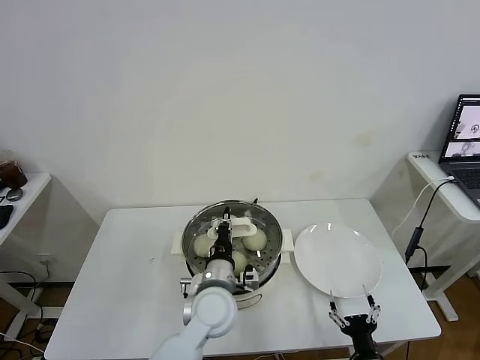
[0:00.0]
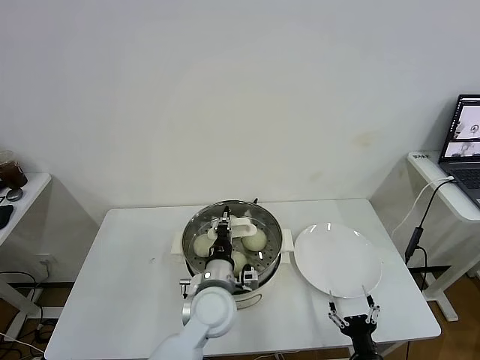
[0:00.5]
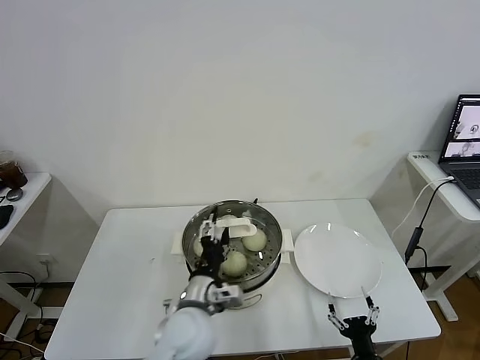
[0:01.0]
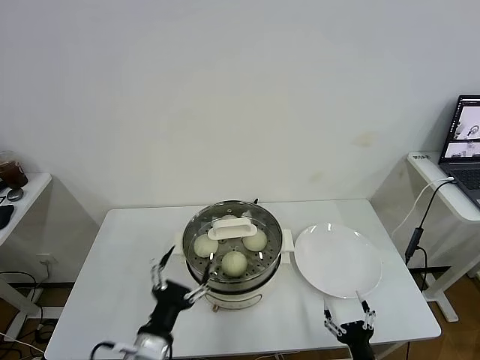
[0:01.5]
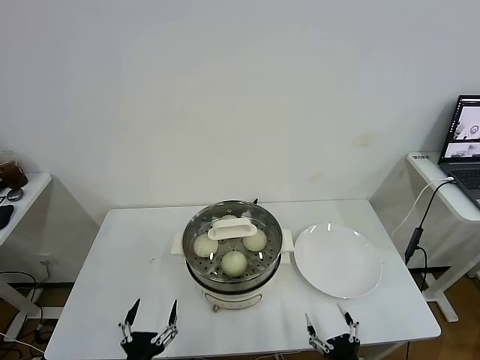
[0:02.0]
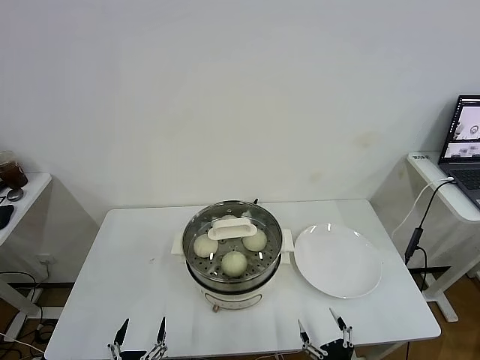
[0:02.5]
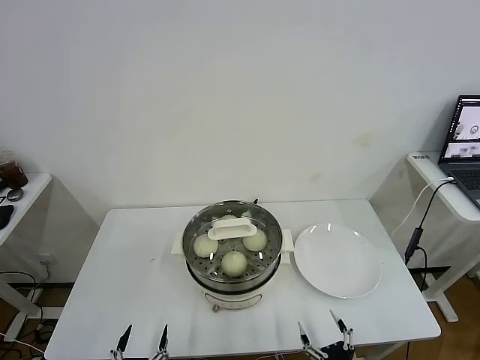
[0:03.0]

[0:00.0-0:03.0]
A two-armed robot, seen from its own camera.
Task of the whole recording: take steamed baozi put them in steamer.
0:00.0 to 0:01.5: The left gripper shifts approximately 20 cm backward and to the left, and opens up.
0:01.5 to 0:03.0: The left gripper travels downward, backward and to the left by approximately 20 cm; the right gripper shifts by roughly 5 cm.

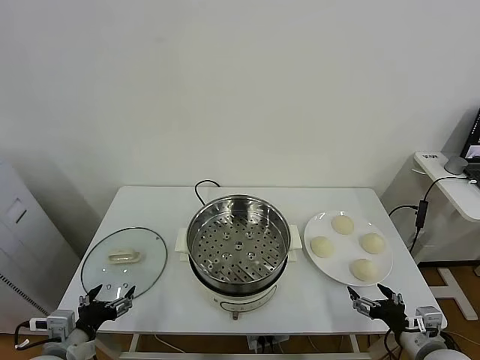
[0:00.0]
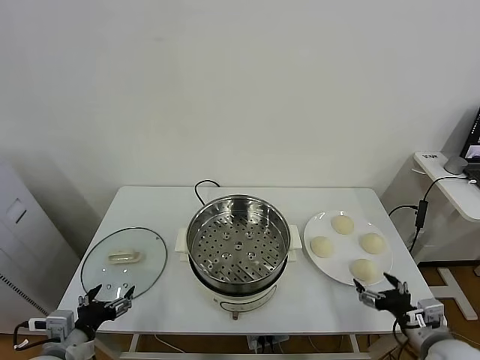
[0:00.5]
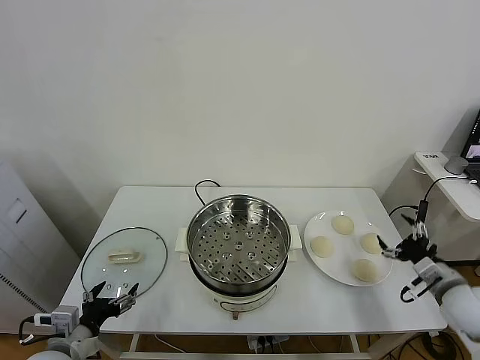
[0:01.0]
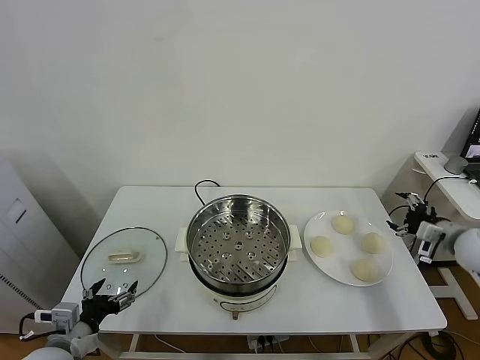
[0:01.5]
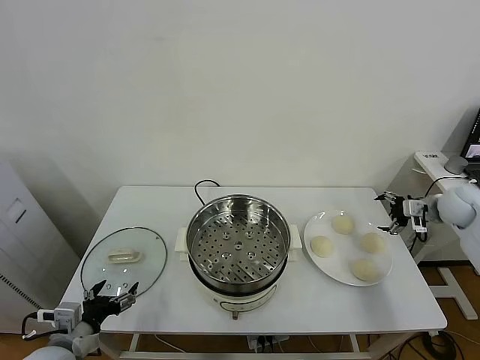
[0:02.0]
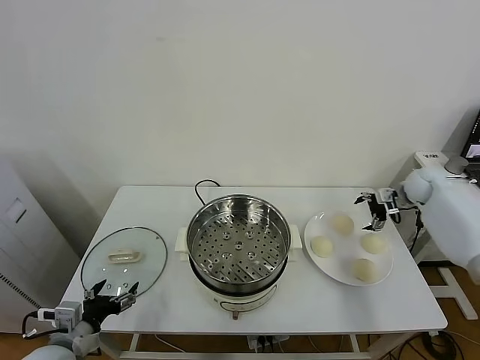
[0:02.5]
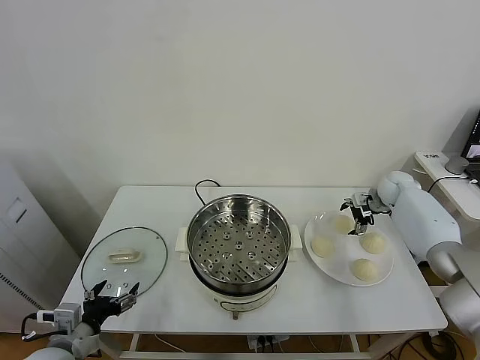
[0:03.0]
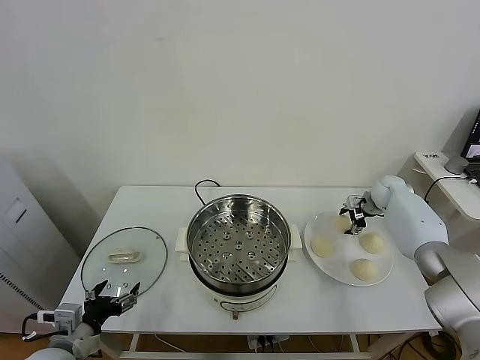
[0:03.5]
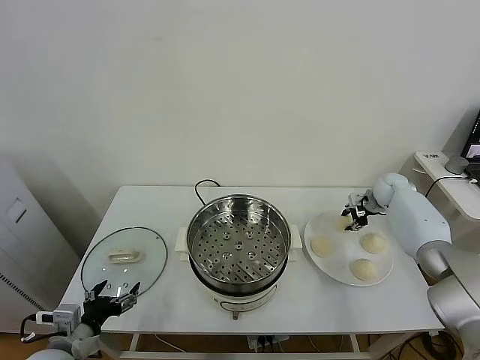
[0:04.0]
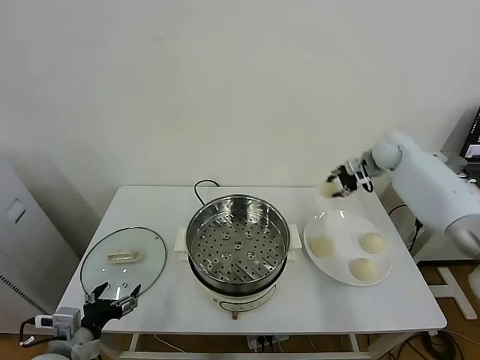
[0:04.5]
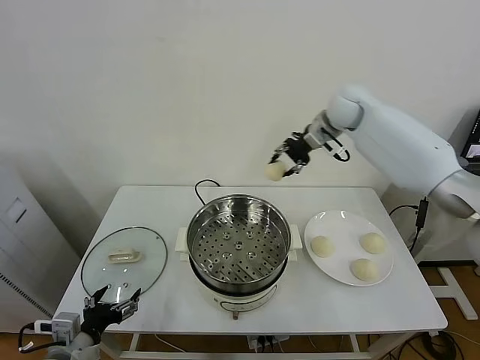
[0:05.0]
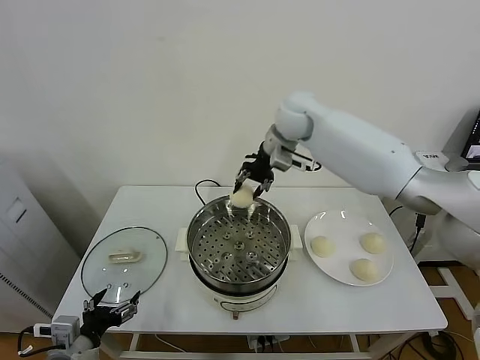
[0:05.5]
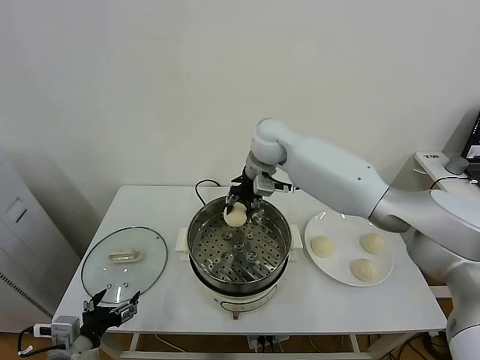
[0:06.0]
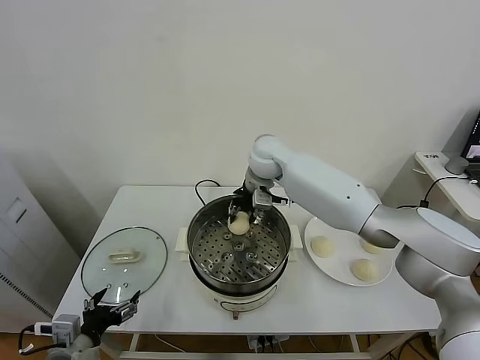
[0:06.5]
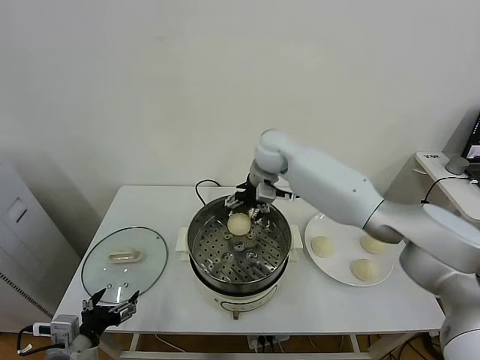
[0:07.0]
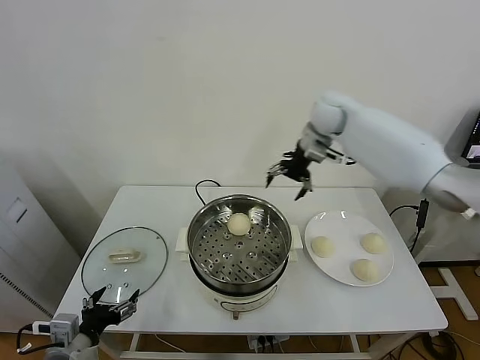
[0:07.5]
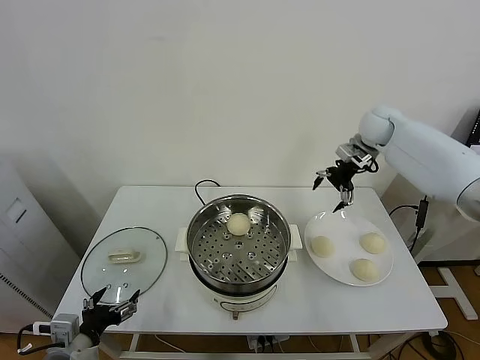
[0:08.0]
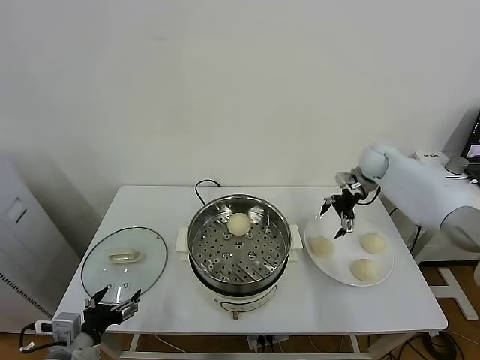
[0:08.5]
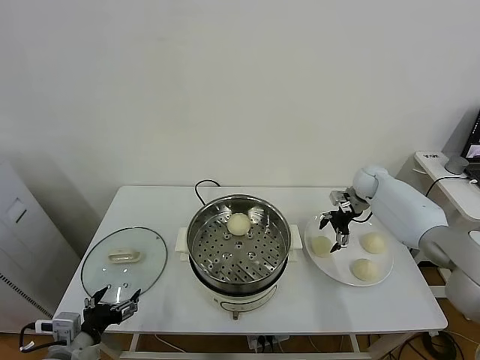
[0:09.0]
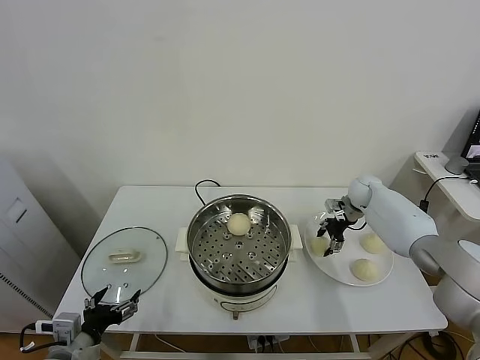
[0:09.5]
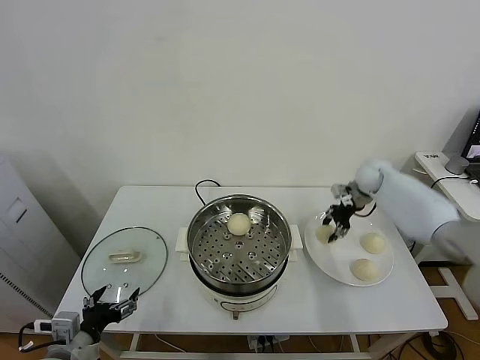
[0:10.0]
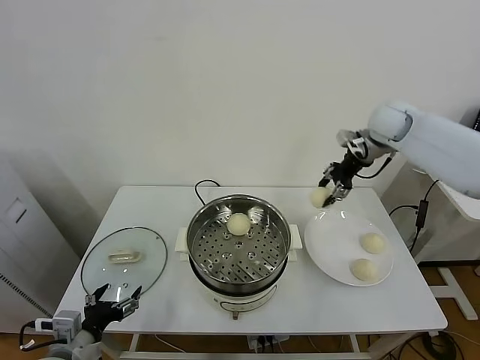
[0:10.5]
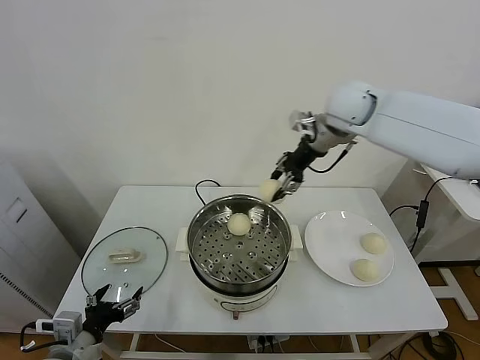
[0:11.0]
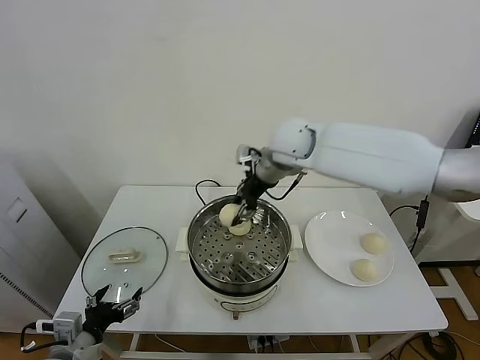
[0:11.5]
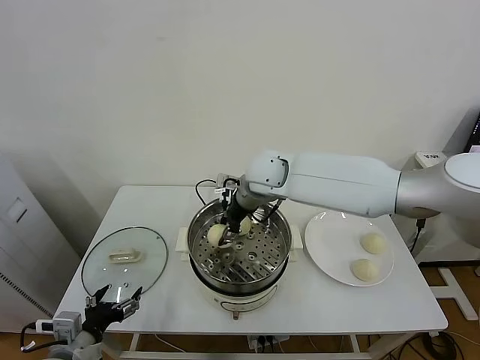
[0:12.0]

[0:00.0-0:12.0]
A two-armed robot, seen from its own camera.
Task of the whole recording: take steamed baozi put them in steamer.
Step, 0:00.0 to 0:03.5: Grasp the baozi in the plate with right gripper.
Step, 0:04.0 to 0:07.0: Place the baozi on the steamer with right gripper.
Step, 0:07.5 to 0:09.5: Grasp the baozi in the plate with right gripper.
0:02.0 to 0:04.0: The right gripper goes some 15 cm forward, to the left and downward, and closes up.
0:04.0 to 0:06.0: The right gripper goes approximately 40 cm to the left and upward.
0:06.0 to 0:08.0: The right gripper is displaced to the right by approximately 30 cm, and opens.
0:08.0 to 0:10.0: The right gripper heads downward, covering roughly 10 cm, and closes up.
0:10.0 to 0:12.0: The right gripper shifts about 30 cm to the left.

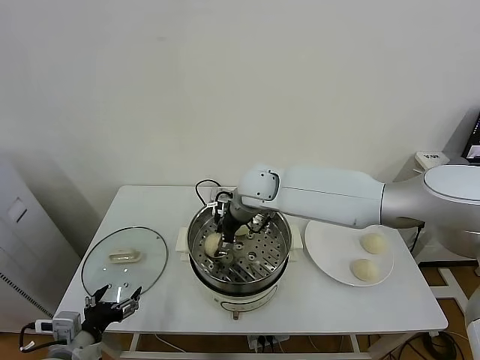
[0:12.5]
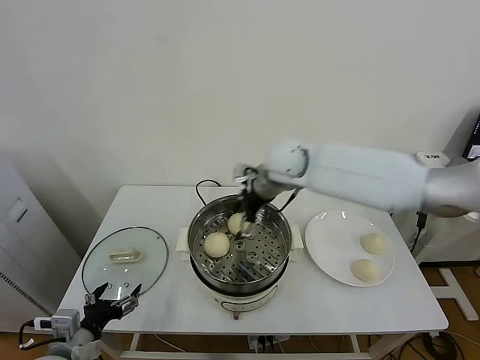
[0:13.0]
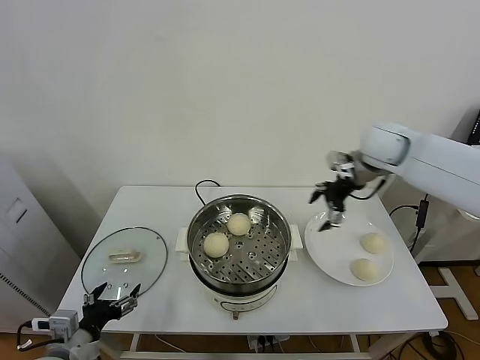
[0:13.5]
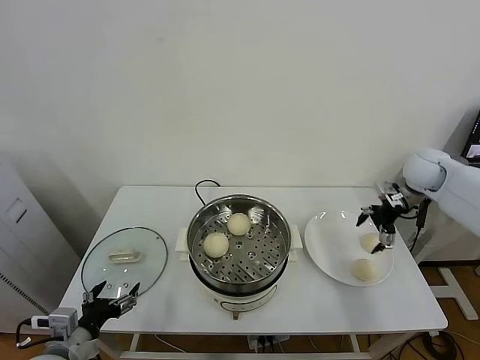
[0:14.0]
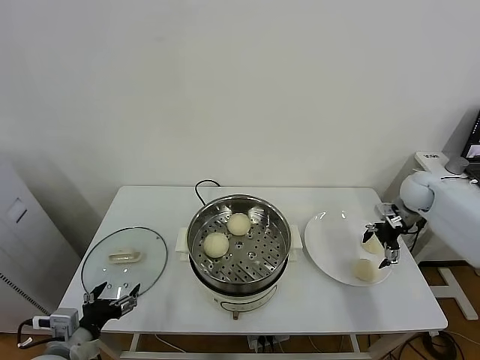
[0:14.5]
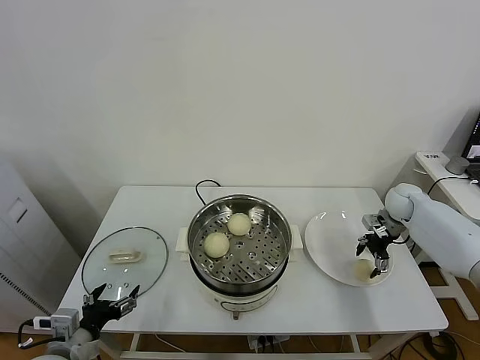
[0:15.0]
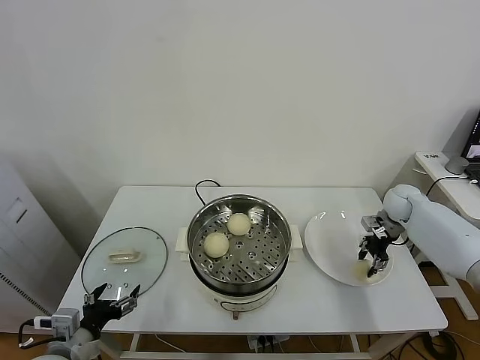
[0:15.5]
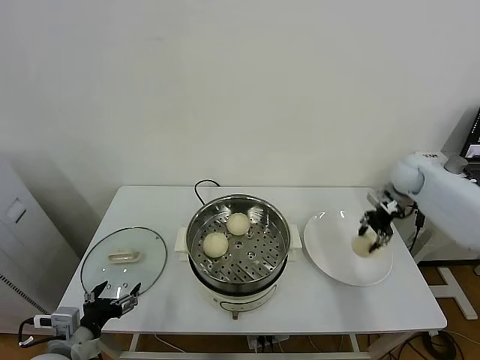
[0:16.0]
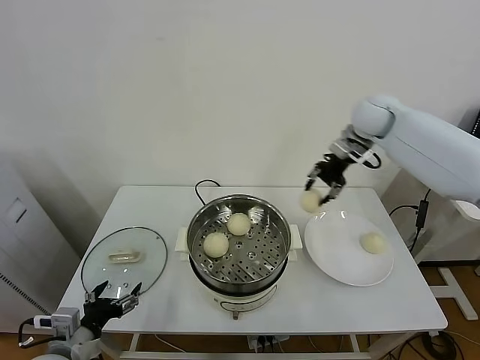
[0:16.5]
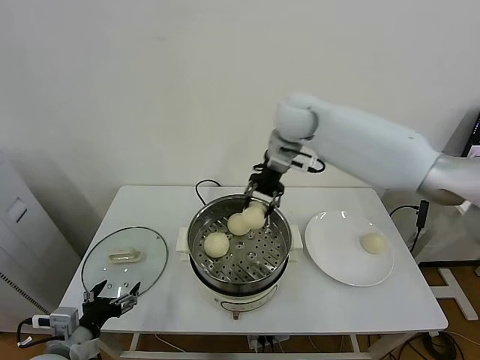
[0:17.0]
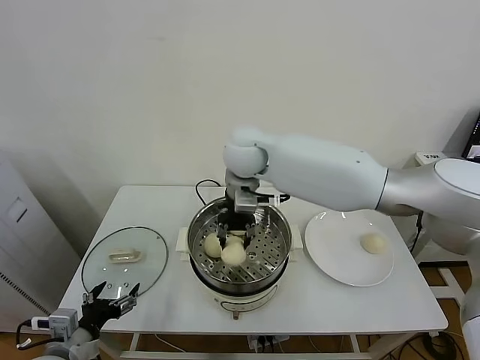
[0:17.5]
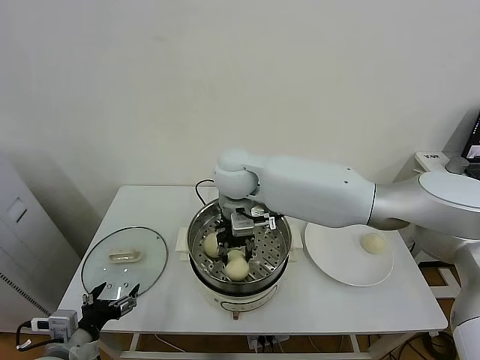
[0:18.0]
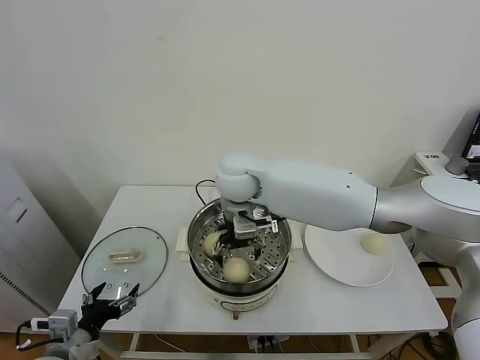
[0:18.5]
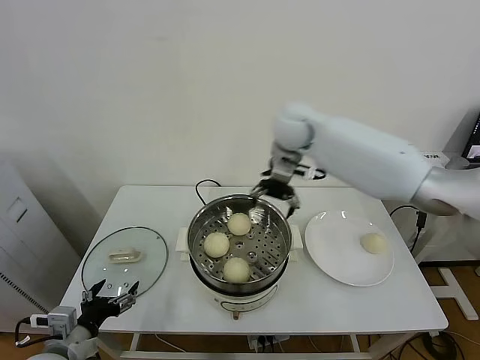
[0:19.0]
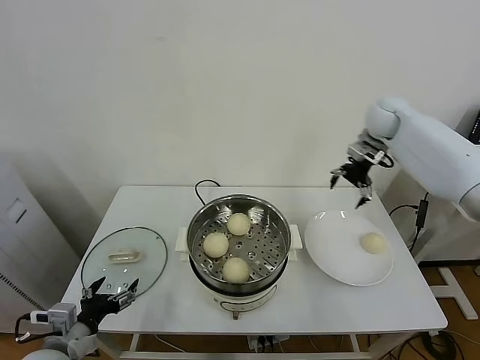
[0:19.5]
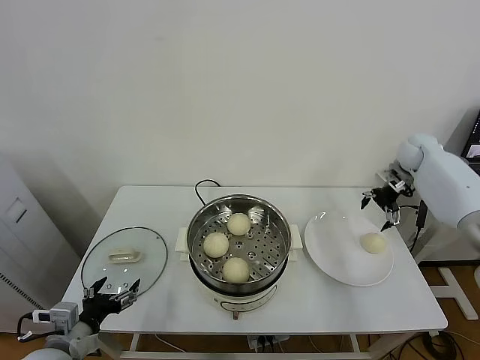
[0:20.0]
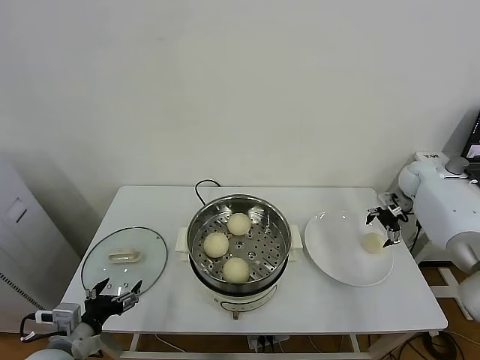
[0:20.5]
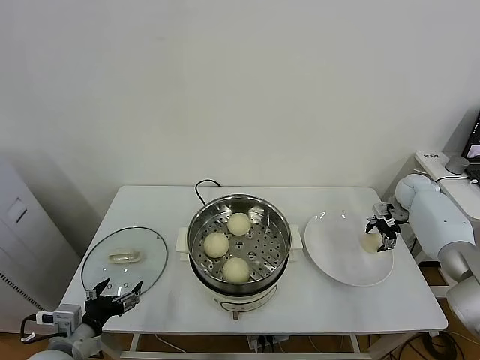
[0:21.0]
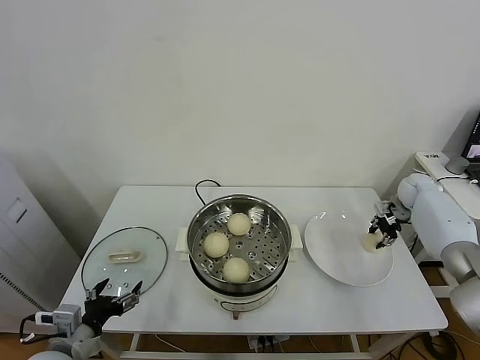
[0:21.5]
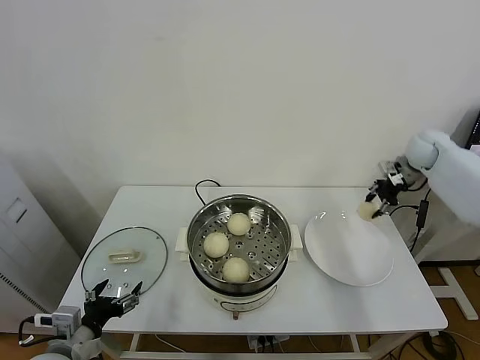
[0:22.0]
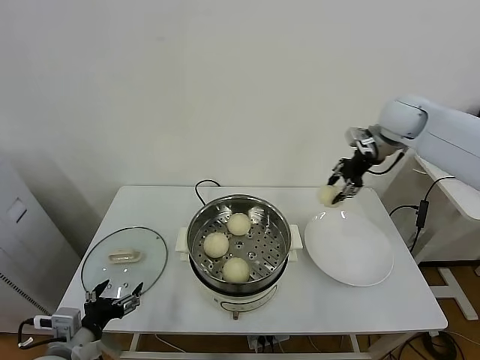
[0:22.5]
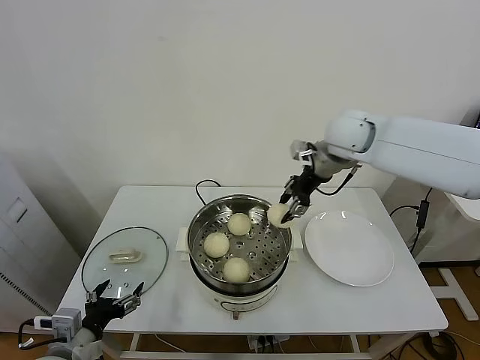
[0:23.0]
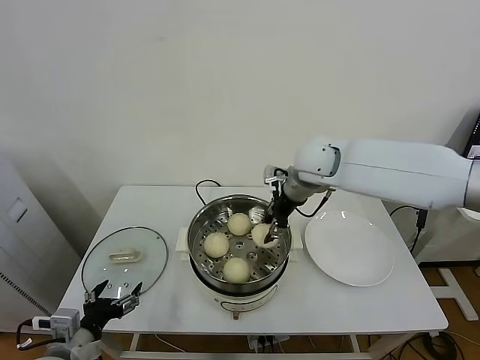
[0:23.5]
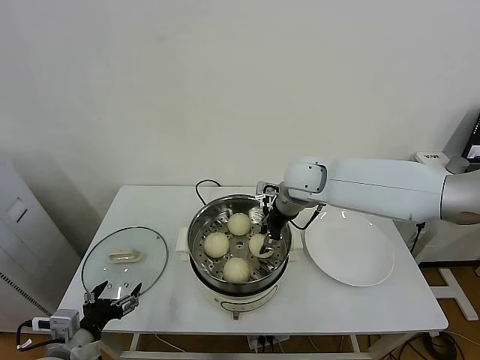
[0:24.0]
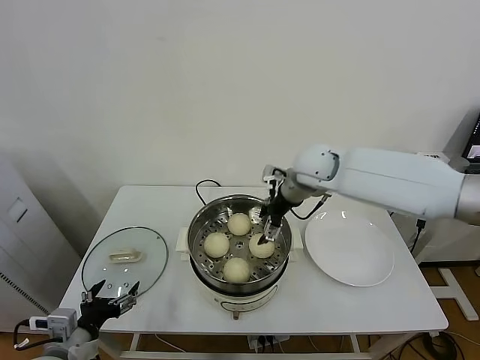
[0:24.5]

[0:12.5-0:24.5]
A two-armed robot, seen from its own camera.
Task of the whole recording: take steamed baozi put them in steamer.
Step, 0:13.0 to 0:15.5: Grasp the baozi in the plate with right gripper.
Step, 0:16.0 to 0:18.5: Place the baozi on the steamer with right gripper.
Step, 0:19.0 to 0:21.0: Grasp the baozi in the plate with right gripper.
0:12.5 to 0:14.5: The right gripper is displaced to the right by about 40 cm, and opens up.
0:14.5 to 0:16.5: The right gripper travels upward and to the left by approximately 25 cm, and closes.
0:16.5 to 0:18.5: The right gripper is displaced to the left by about 30 cm, and opens up.
0:18.5 to 0:20.5: The right gripper goes some 50 cm to the right.
0:20.5 to 0:22.5: The right gripper moves upward and to the left, approximately 25 cm, and closes.
0:22.5 to 0:24.5: The right gripper travels to the left and downward by roughly 20 cm, and opens.
